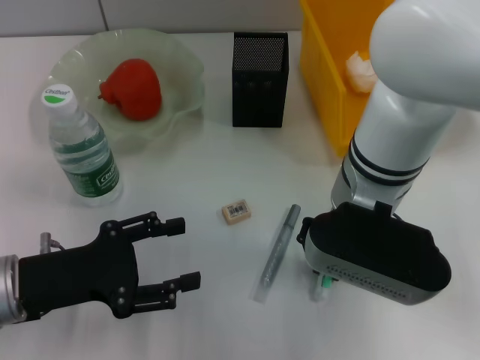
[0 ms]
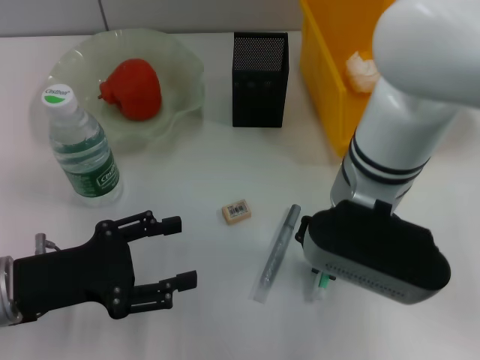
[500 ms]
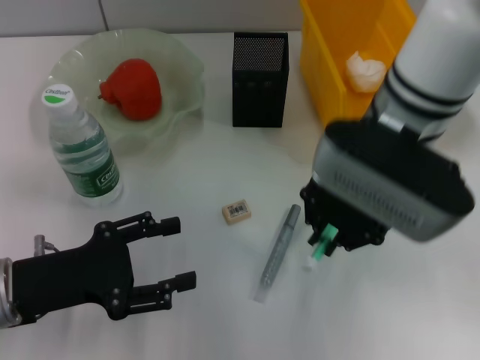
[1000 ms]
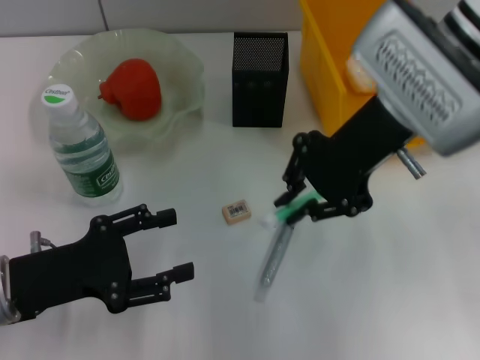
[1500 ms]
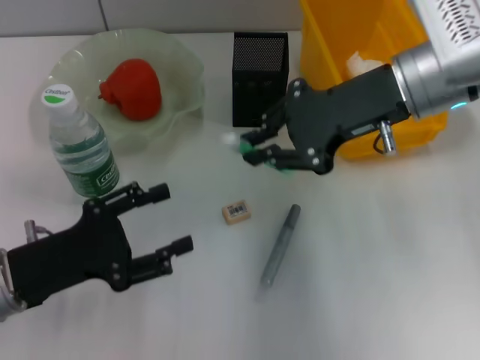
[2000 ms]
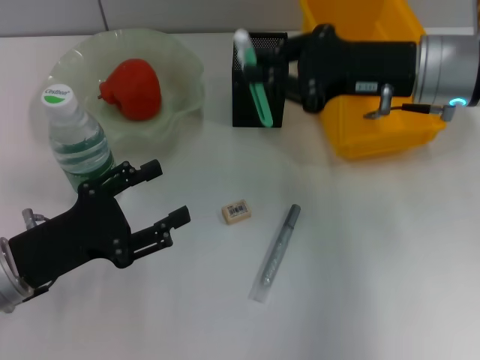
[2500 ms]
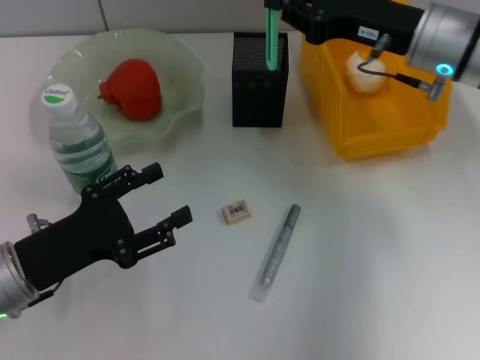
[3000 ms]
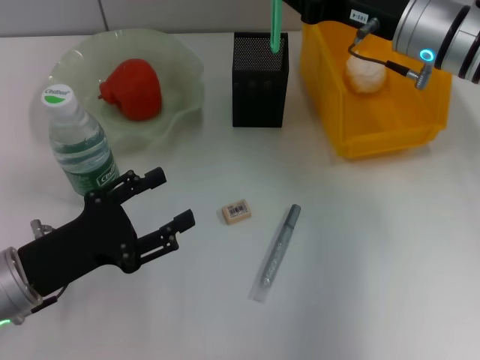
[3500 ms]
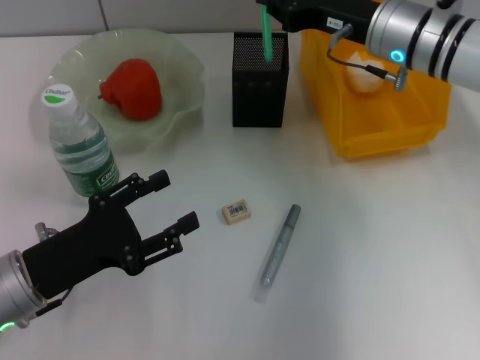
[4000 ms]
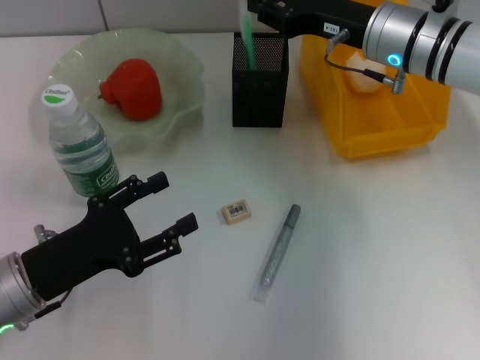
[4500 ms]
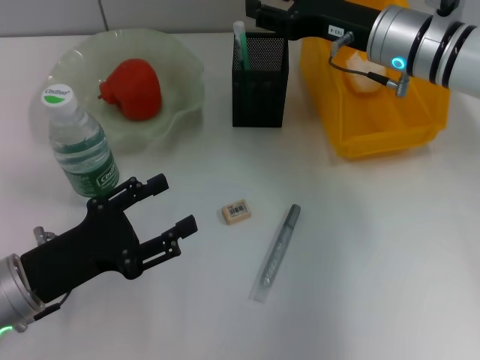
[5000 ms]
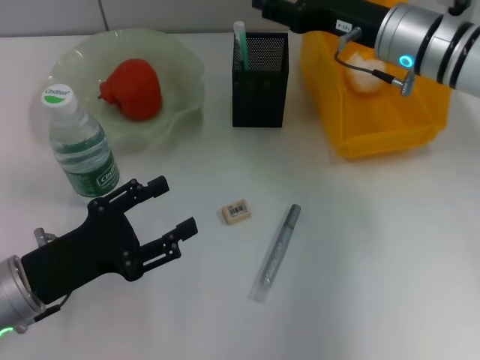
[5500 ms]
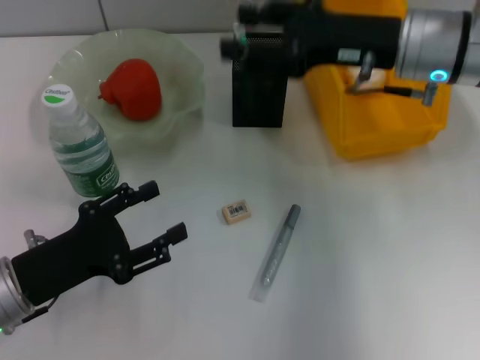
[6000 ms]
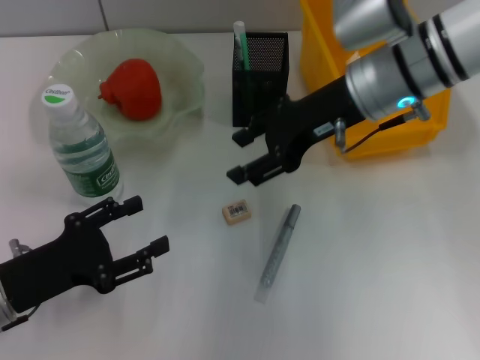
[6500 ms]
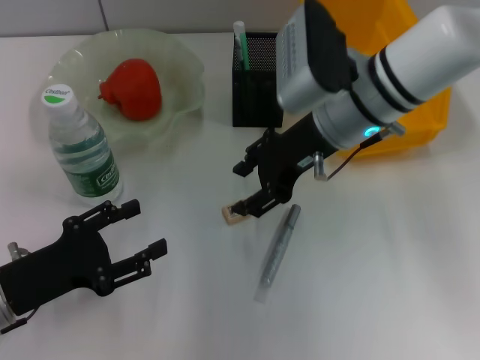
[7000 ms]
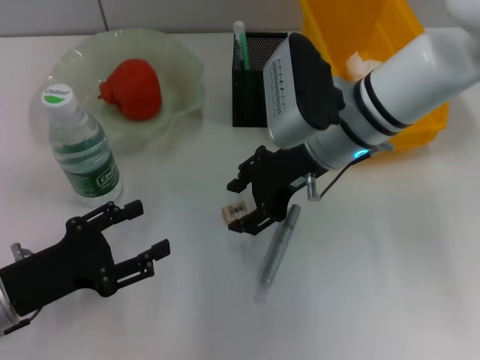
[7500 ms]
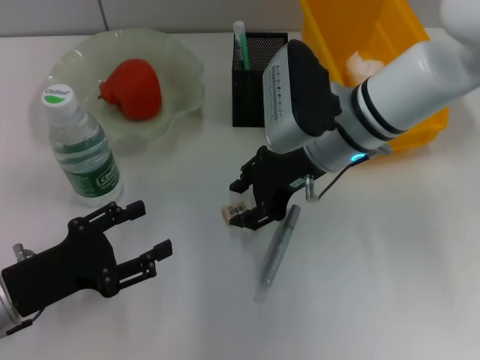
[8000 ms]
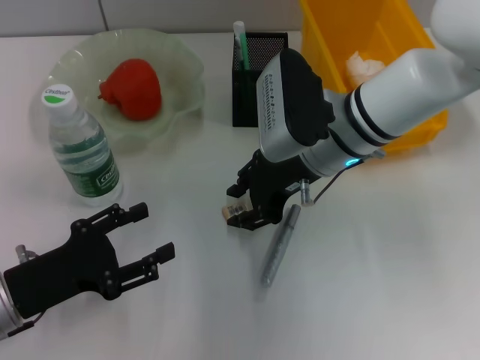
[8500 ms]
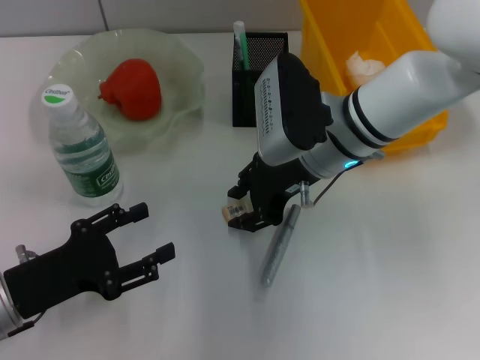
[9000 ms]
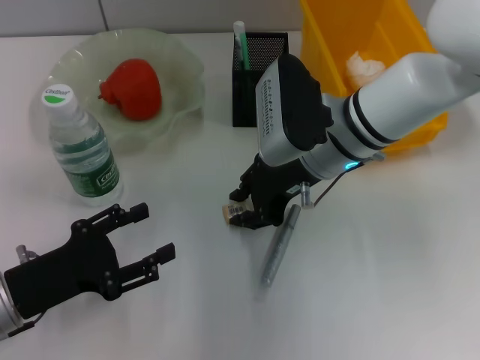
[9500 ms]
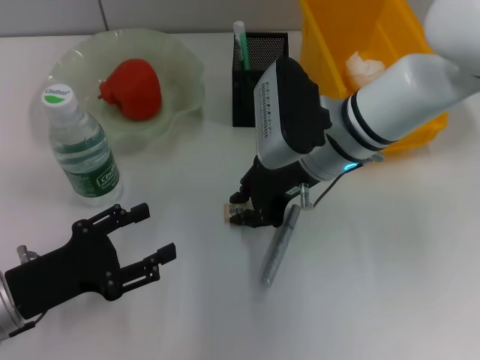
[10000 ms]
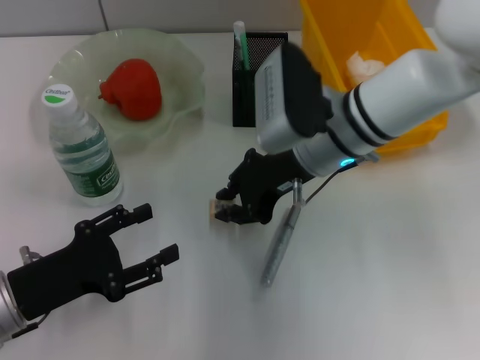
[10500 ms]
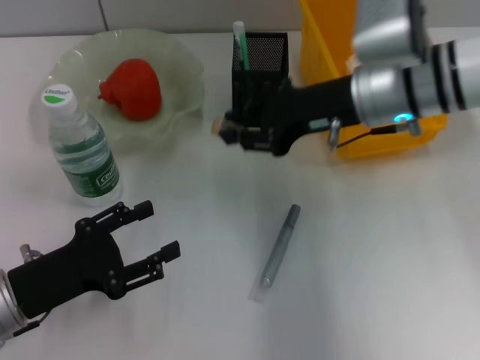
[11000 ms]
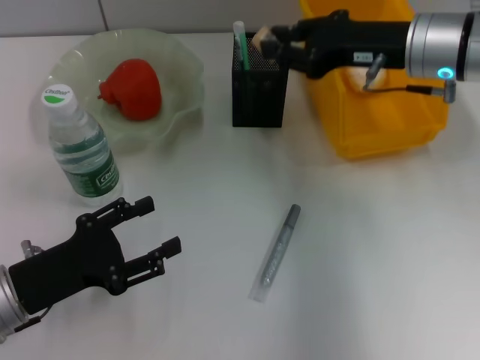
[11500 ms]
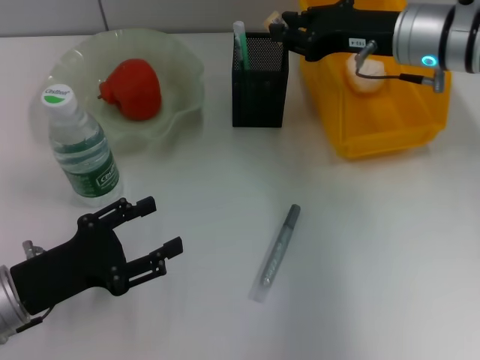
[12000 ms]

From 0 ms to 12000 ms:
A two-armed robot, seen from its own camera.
Step, from 500 ms to 4500 ms: Place the blue utility knife into the pen holder with the right hand.
Step, from 5000 ms to 10000 ms: Grab the eraser with the right hand.
From 0 ms to 2000 ms: The right gripper goes about 10 cm to the right, forward and upward.
From 2000 ms to 4000 ms: The right gripper is displaced forward and downward by roughly 10 cm.
From 4000 ms to 6000 ms: The right gripper ends up roughly 5 cm from where it was, and opens up.
From 6000 ms to 8000 ms: The right gripper travels to the left and downward by about 10 cm.
From 8000 ms to 10000 ms: The two grippers keep their place.
From 10000 ms to 12000 ms: The right gripper moves to the right and upward, about 10 cm.

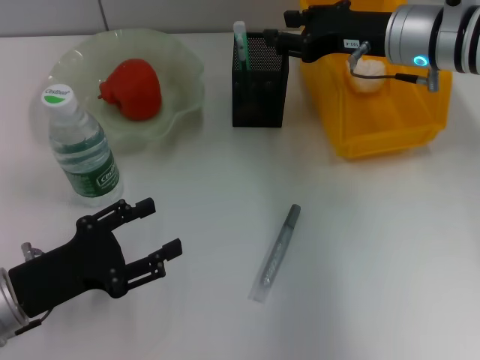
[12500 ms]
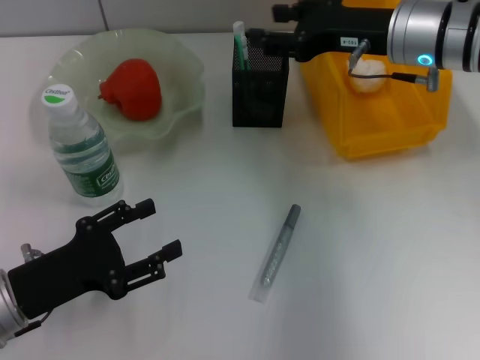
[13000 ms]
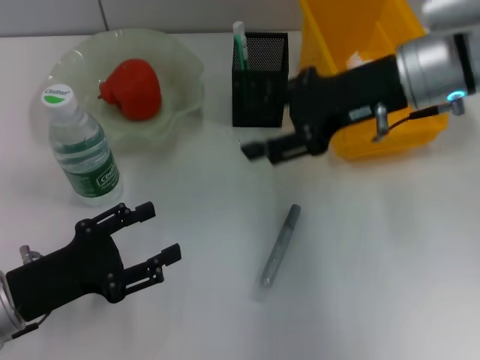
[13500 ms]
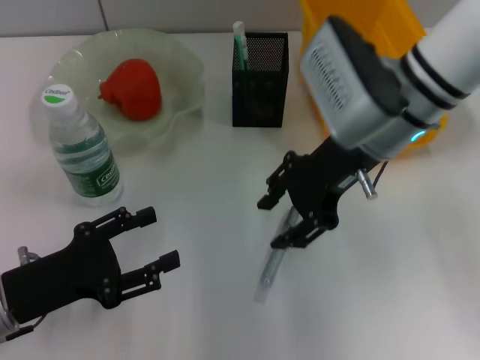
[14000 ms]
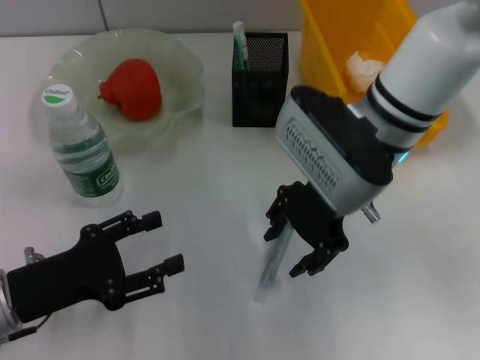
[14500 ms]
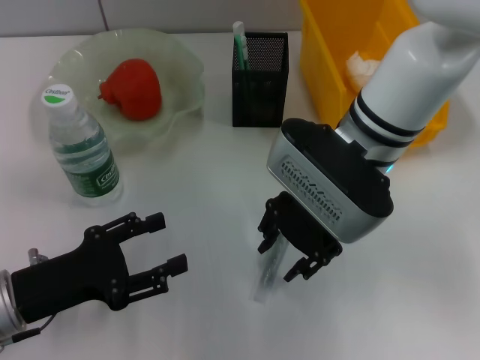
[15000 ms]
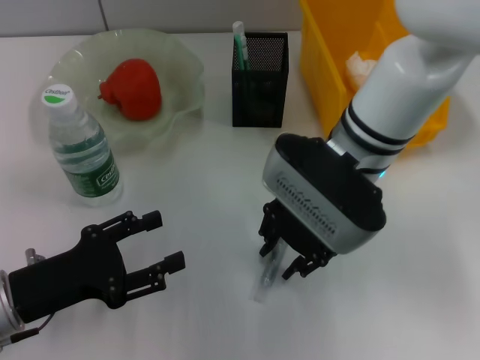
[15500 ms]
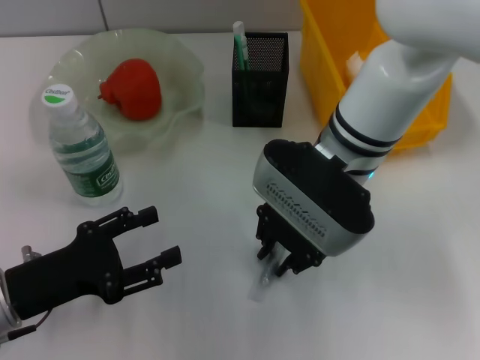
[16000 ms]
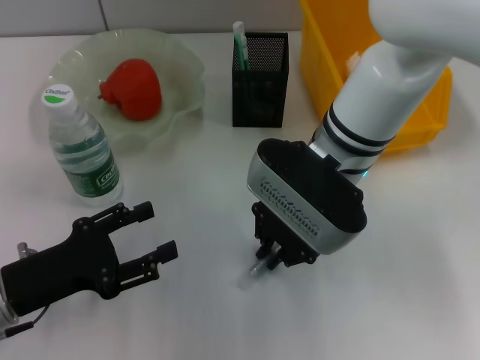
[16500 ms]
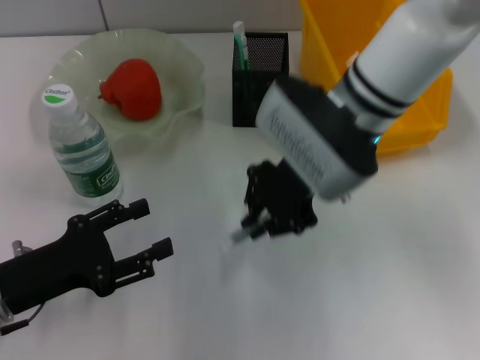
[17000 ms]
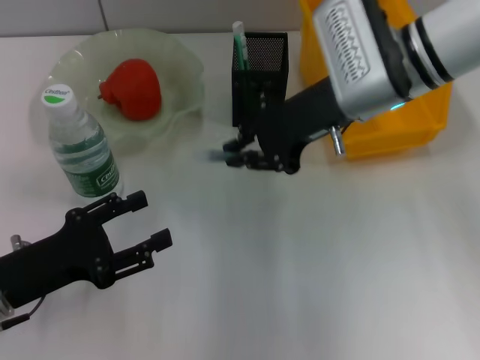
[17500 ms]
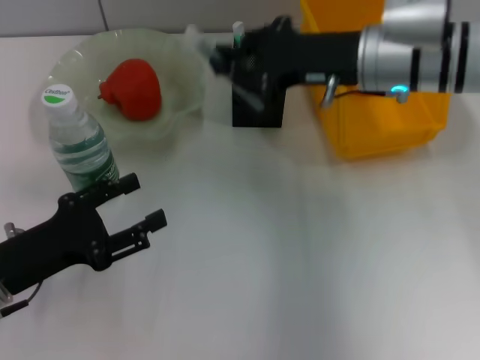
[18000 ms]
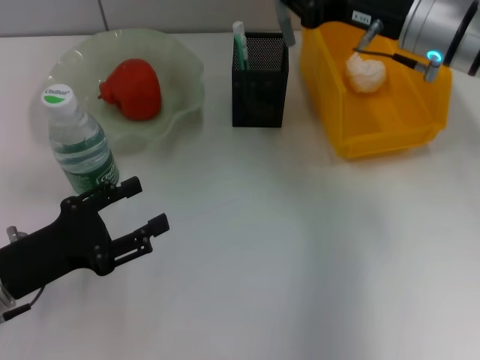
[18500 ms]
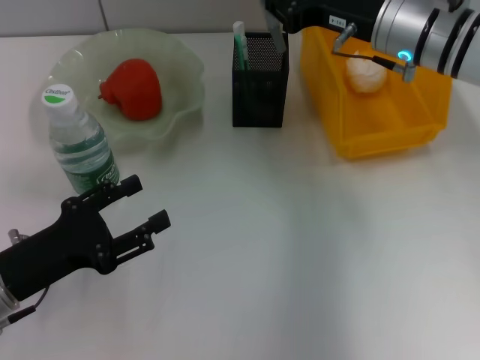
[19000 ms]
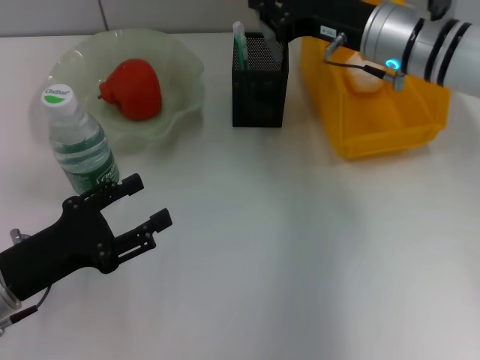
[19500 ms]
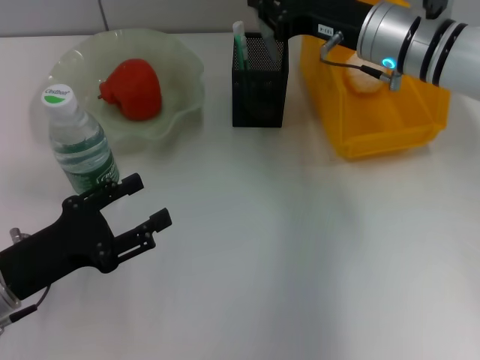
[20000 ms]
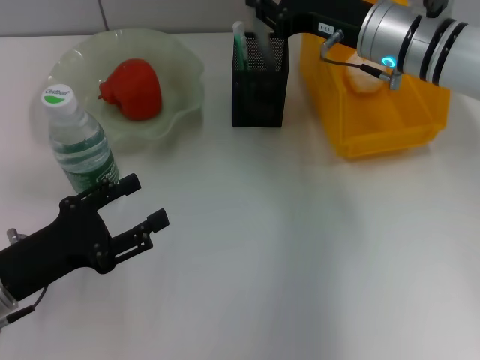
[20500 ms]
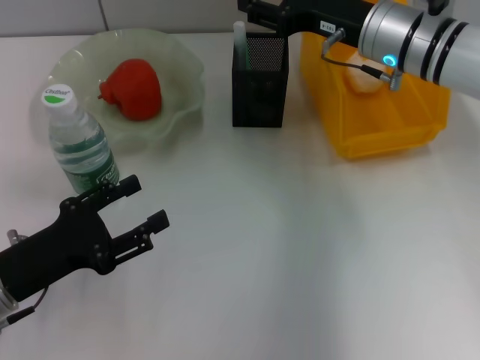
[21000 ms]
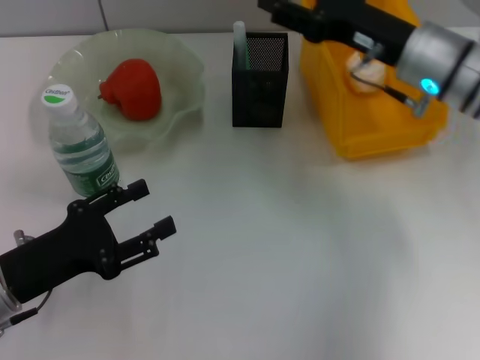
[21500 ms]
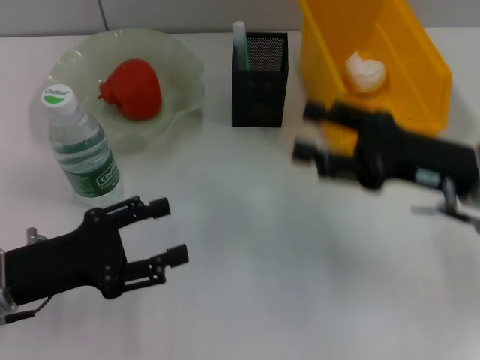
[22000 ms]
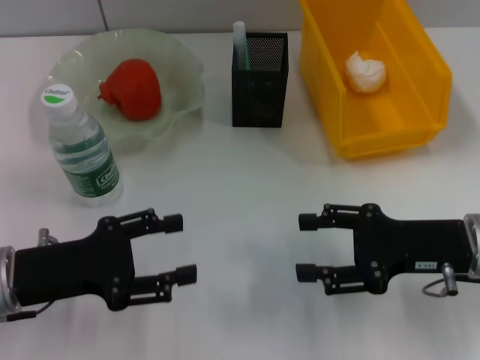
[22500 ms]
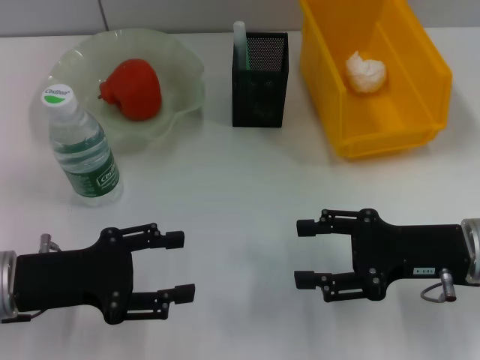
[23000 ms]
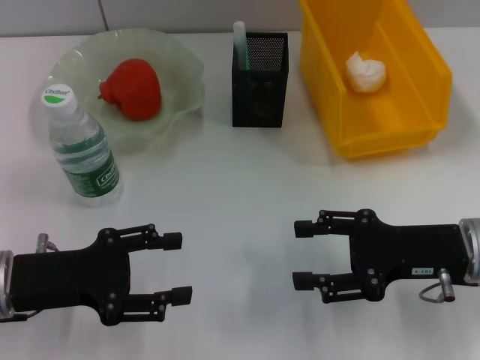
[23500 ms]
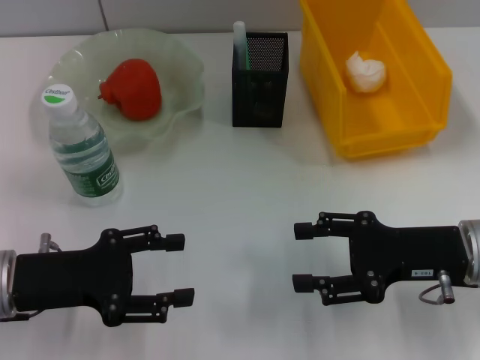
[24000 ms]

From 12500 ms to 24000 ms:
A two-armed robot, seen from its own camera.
Step, from 13000 ms to 16000 ms: Grab the gray glue with the right hand.
Step, from 16500 ms to 20500 ms: Place the gray glue into the pen holder with the right hand.
From 12500 ms to 14500 ms: The right gripper heads to the left and backward, covering approximately 10 cm.
From 14500 ms to 16500 ms: The right gripper closes.
From 16500 ms to 18500 ms: The right gripper is displaced to the right and forward by roughly 15 cm.
From 18500 ms to 20000 ms: The grippers move only a little.
From 20000 ms to 22000 ms: The right gripper moves backward and to the right, roughly 15 cm, and opens.

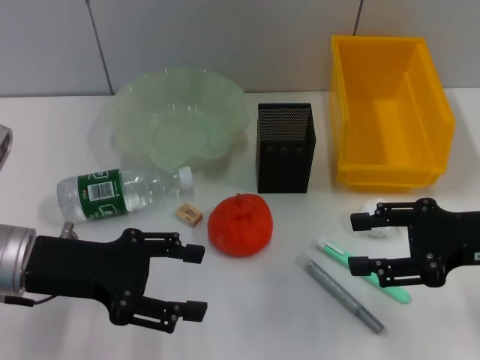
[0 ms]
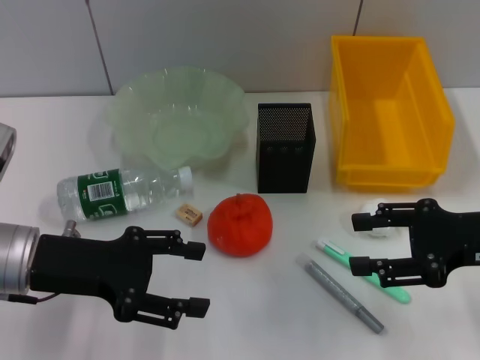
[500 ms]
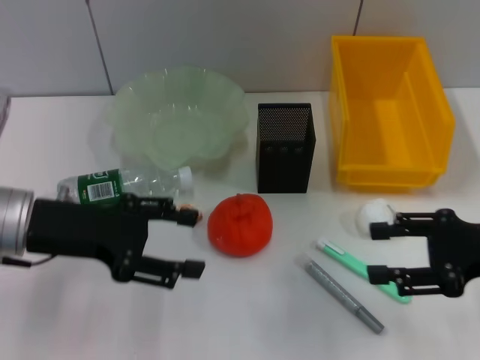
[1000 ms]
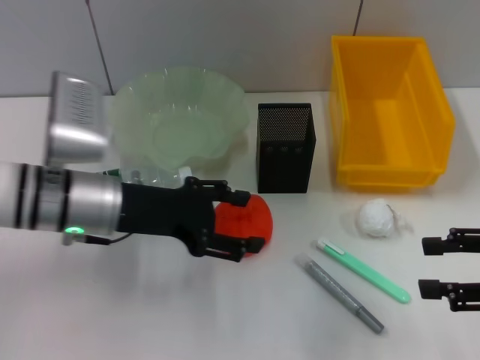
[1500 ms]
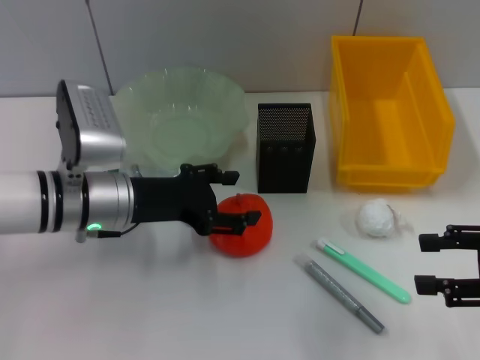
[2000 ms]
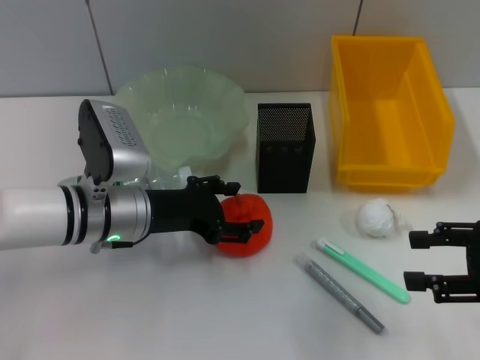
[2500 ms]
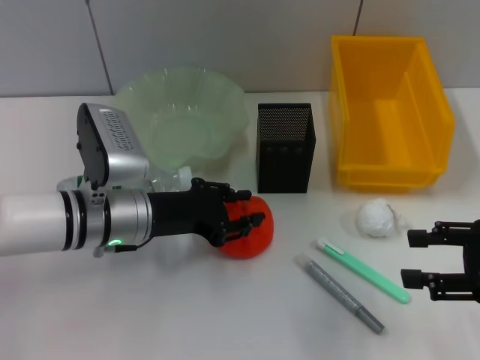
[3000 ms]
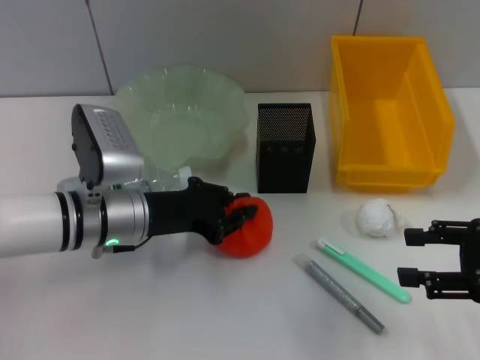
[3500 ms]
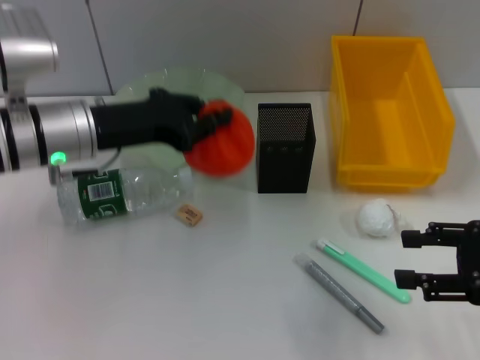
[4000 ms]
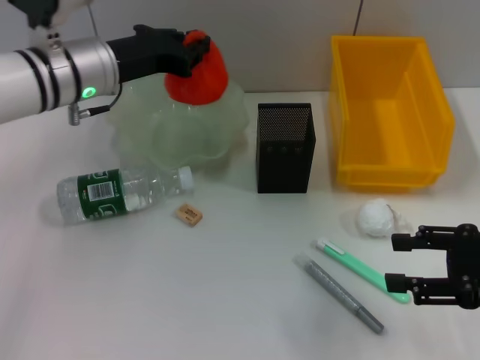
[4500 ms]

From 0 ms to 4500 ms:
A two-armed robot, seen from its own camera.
Step, from 0 ms to 3000 ms: Grab the orange with the left hand.
From 0 ms to 2000 ms: The left gripper travels to the right and forward by some 10 cm; the right gripper shifts roughly 5 cm to the right.
From 2000 ms to 4500 ms: The left gripper is displaced forward and upward by approximately 10 cm, and closes its fingers.
